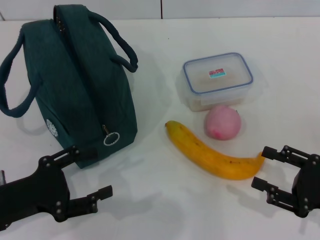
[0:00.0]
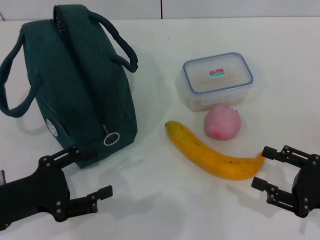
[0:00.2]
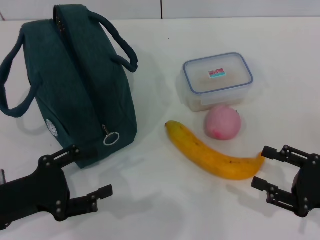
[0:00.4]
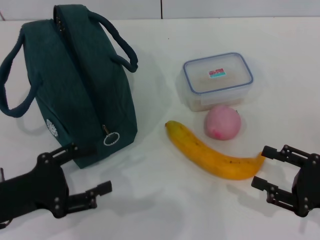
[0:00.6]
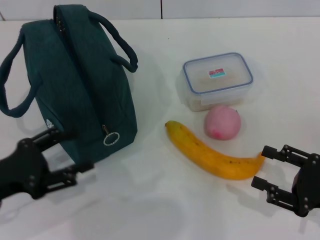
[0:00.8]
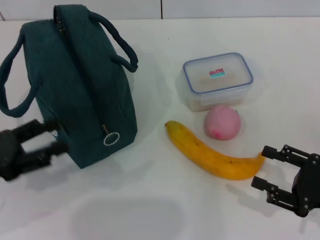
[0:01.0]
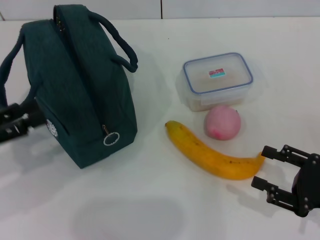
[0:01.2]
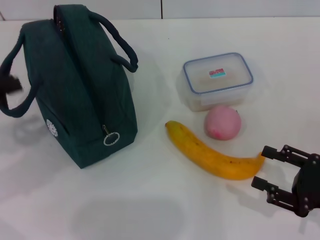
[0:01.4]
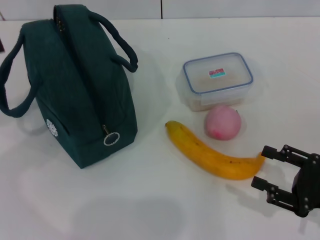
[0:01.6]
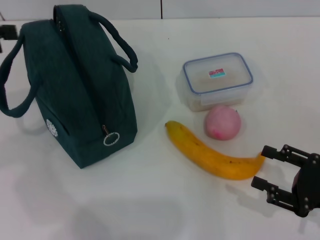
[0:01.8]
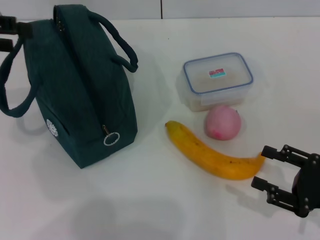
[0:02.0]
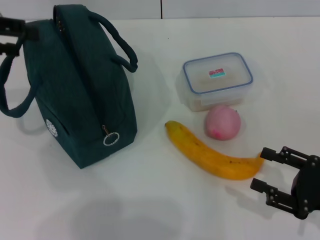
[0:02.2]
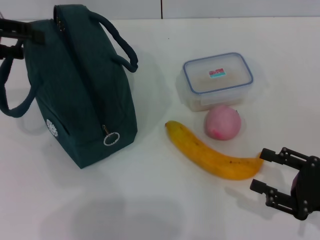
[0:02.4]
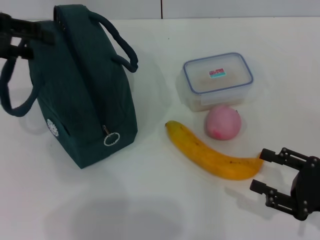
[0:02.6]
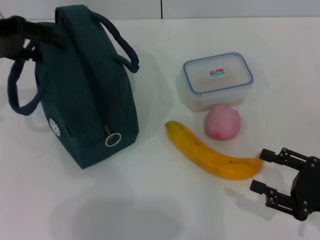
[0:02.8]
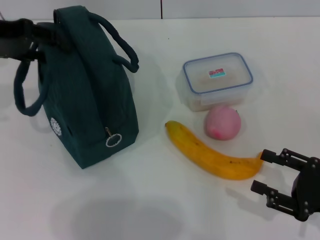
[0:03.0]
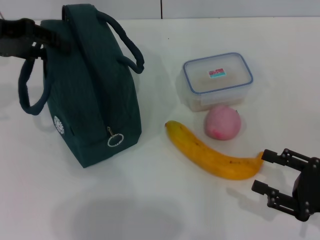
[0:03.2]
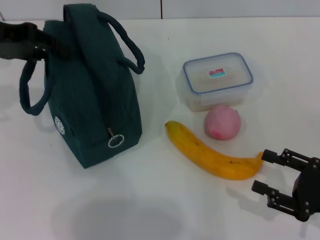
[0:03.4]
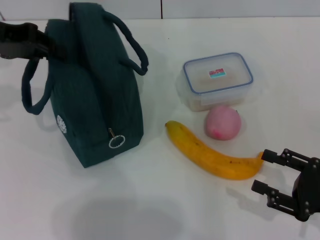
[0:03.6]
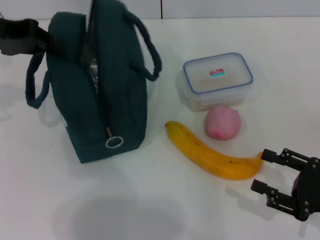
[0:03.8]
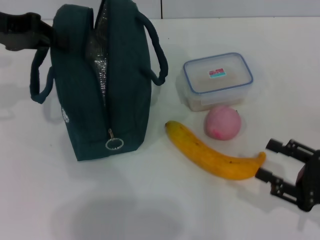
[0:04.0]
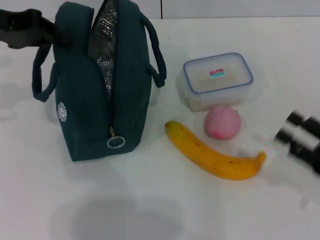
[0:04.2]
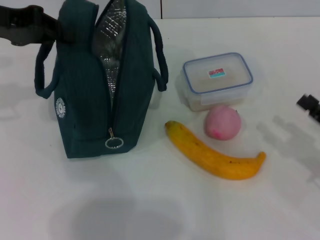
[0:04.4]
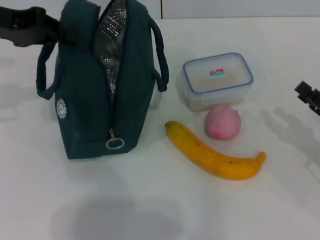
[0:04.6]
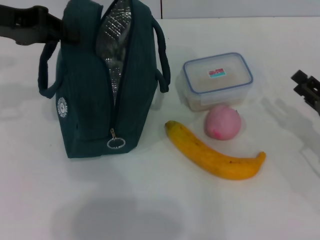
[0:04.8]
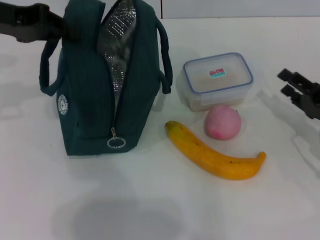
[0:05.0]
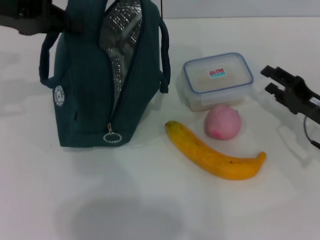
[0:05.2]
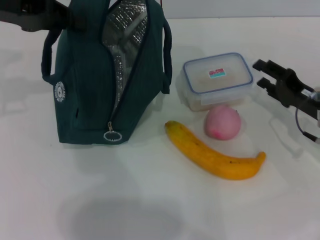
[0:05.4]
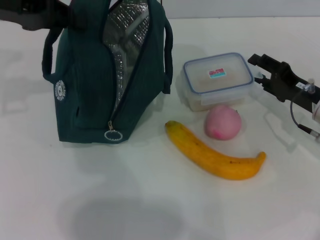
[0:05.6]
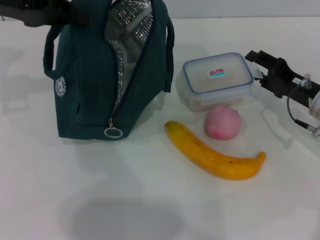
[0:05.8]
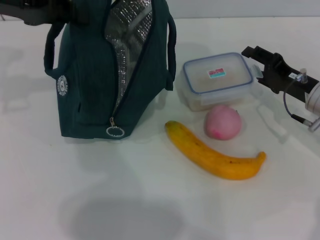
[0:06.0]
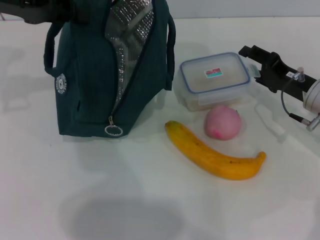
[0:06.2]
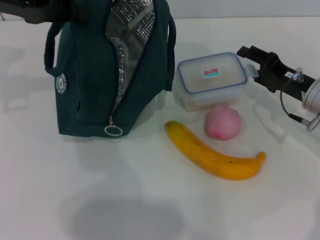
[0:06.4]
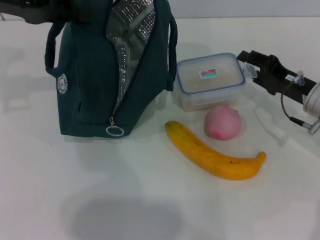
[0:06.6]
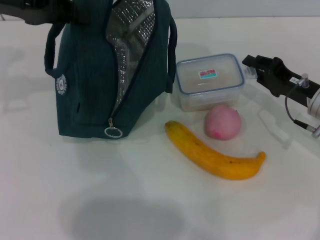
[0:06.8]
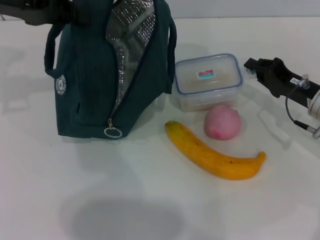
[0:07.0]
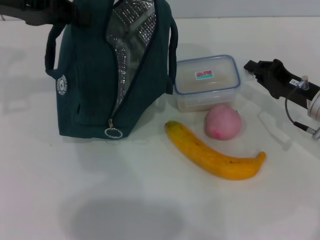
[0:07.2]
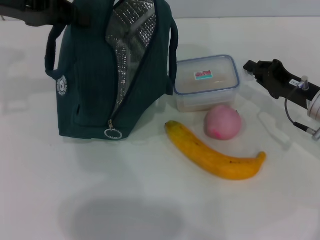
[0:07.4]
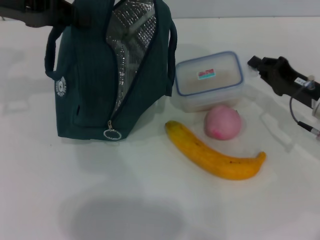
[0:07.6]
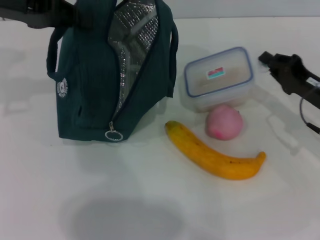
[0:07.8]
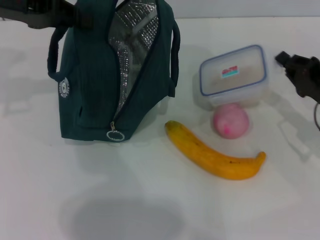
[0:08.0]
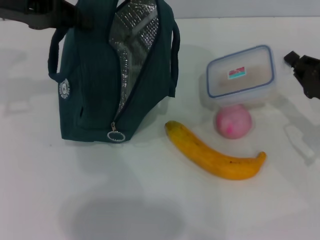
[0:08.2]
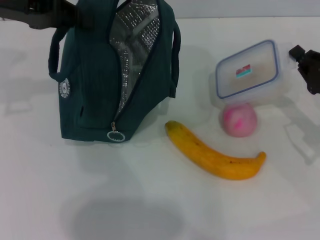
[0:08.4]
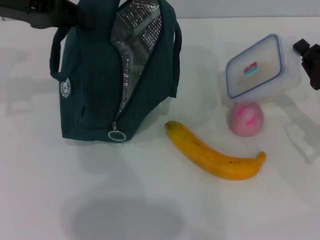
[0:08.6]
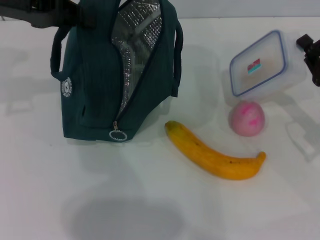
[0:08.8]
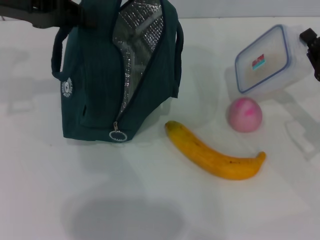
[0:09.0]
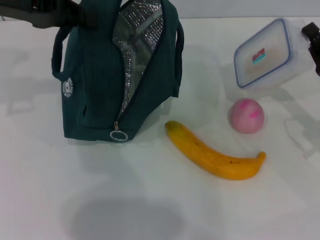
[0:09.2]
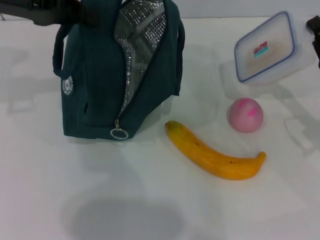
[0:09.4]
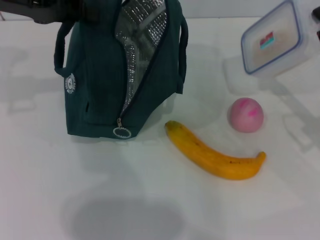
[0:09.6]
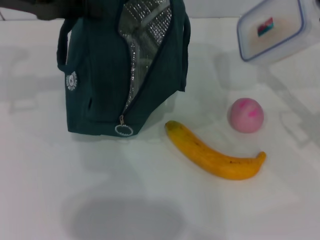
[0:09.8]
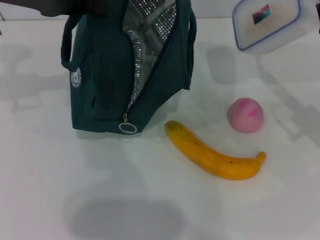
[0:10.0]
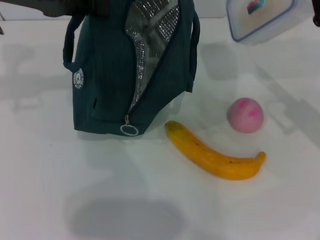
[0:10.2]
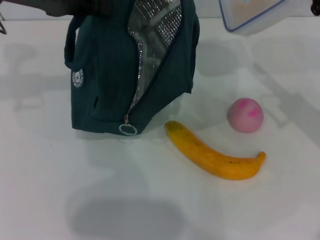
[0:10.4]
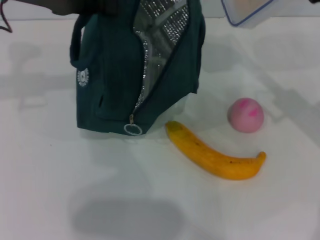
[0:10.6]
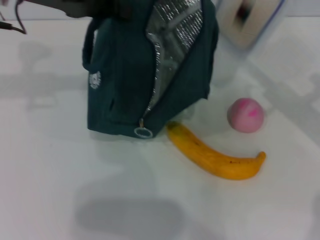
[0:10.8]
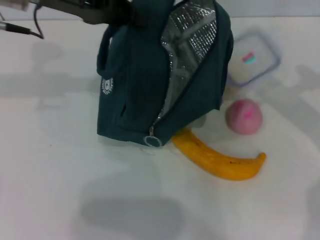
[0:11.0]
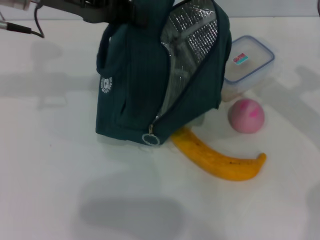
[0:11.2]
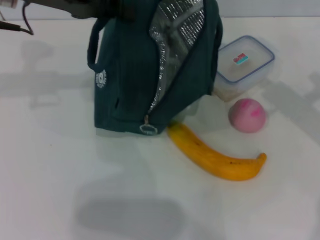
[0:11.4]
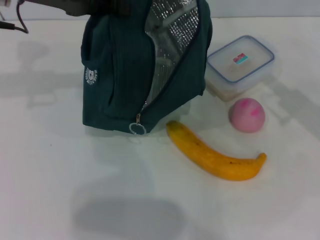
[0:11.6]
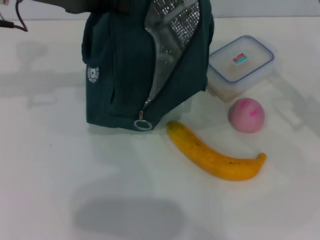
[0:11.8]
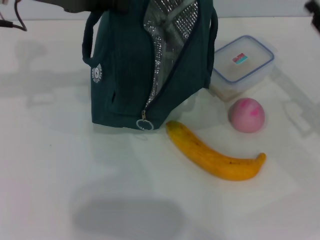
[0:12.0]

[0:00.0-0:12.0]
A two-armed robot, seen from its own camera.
Step, 0:00.0 to 0:03.6: Hold the lunch bag with your left hand.
0:00.0 to 0:01.6: The left gripper travels upward, to the left and forward by some 20 cm.
0:01.6 to 0:03.0: The left gripper goes about 15 cm forward and to the right.
0:03.0 to 0:04.4: The left gripper closes its fingers.
0:04.4 to 0:06.0: The right gripper goes approximately 15 cm forward and to the left.
0:06.0 to 0:07.6: The right gripper closes.
0:07.6 to 0:09.0: The right gripper changes place by roughly 5 cm.
0:09.0 to 0:10.4: The right gripper is displaced upward by about 5 cm.

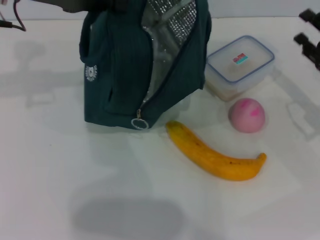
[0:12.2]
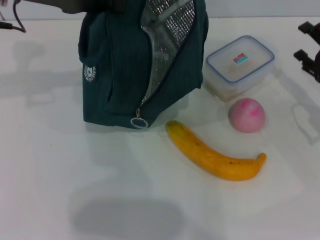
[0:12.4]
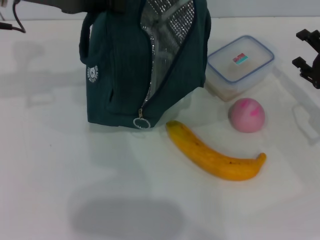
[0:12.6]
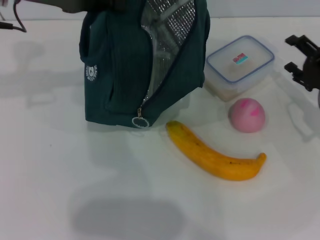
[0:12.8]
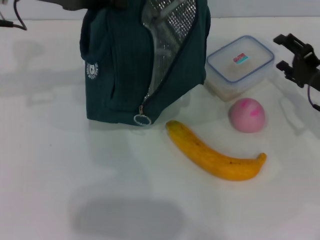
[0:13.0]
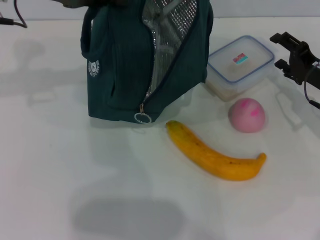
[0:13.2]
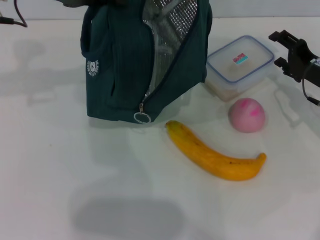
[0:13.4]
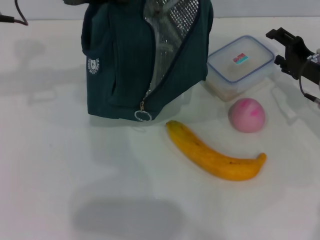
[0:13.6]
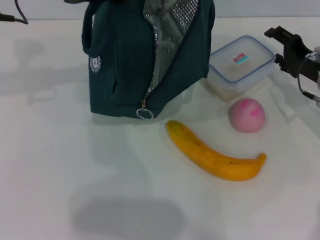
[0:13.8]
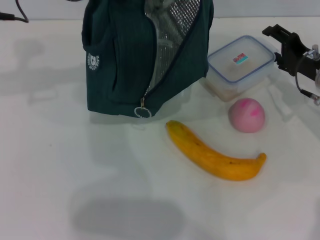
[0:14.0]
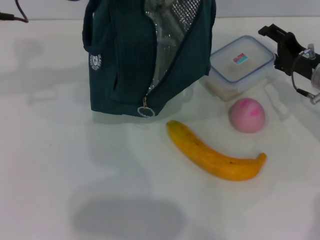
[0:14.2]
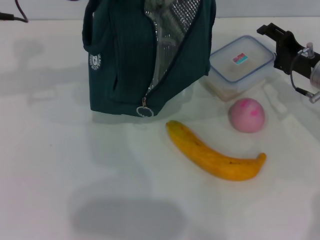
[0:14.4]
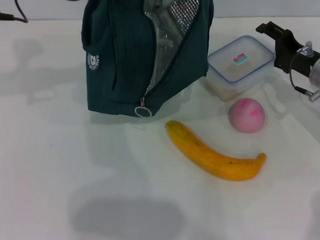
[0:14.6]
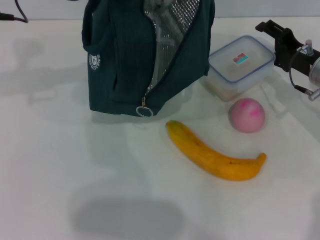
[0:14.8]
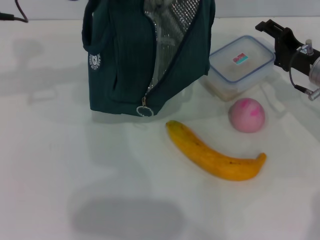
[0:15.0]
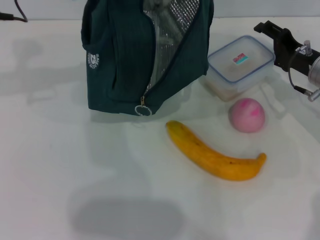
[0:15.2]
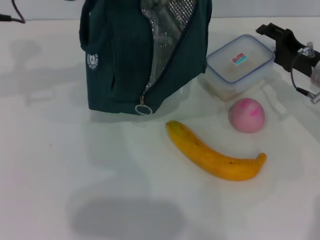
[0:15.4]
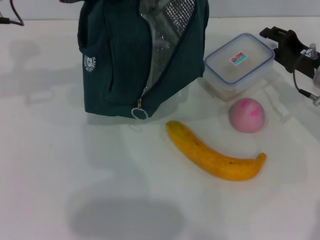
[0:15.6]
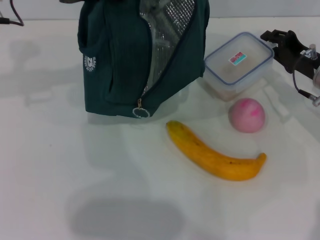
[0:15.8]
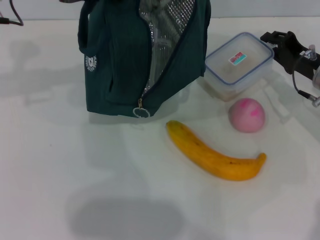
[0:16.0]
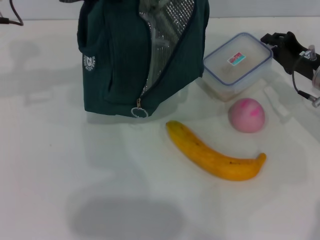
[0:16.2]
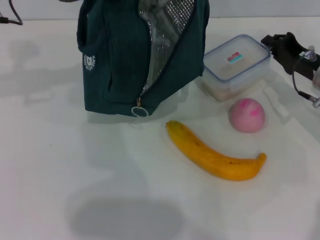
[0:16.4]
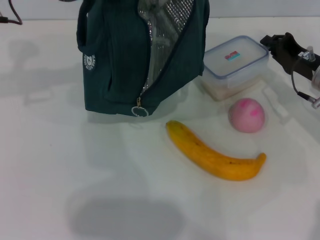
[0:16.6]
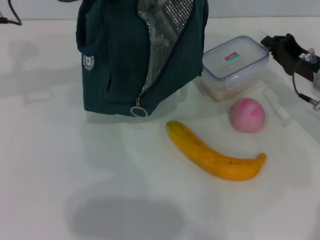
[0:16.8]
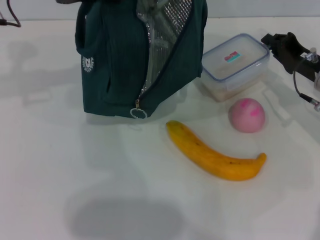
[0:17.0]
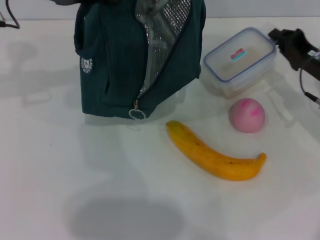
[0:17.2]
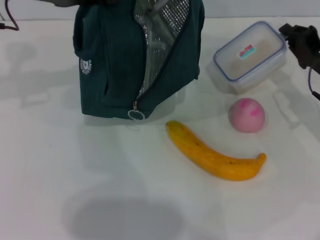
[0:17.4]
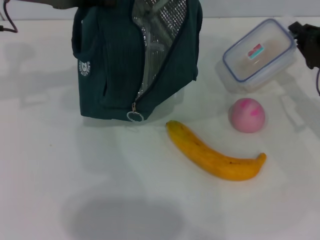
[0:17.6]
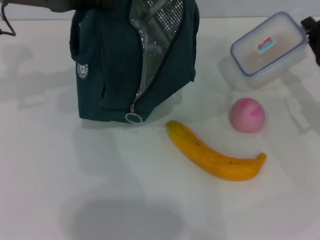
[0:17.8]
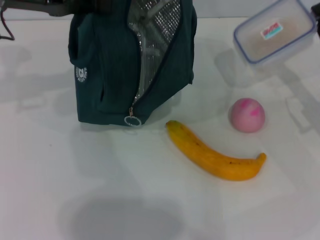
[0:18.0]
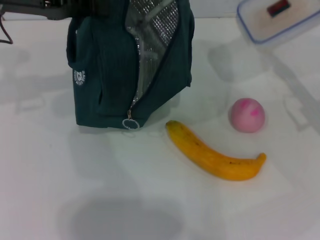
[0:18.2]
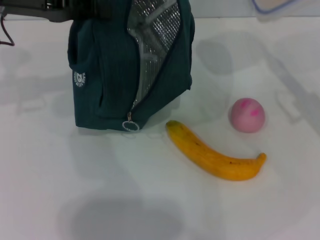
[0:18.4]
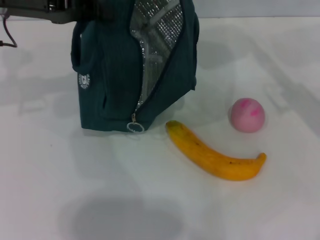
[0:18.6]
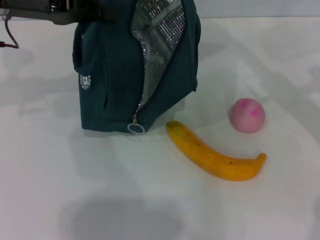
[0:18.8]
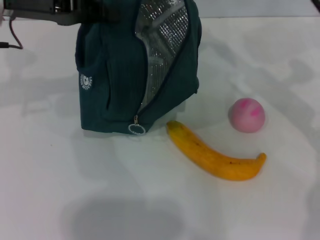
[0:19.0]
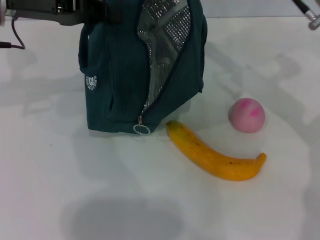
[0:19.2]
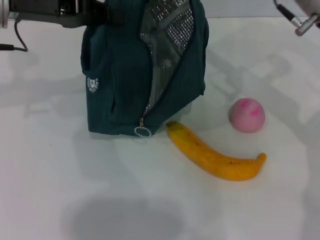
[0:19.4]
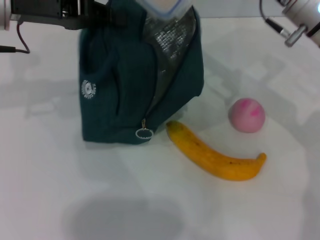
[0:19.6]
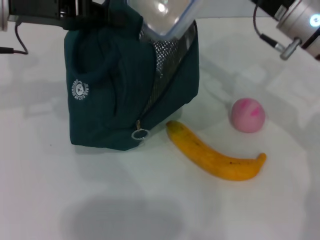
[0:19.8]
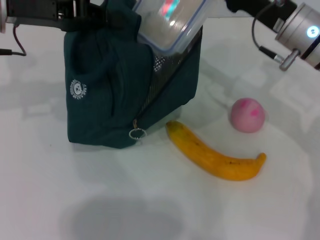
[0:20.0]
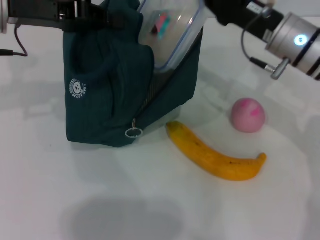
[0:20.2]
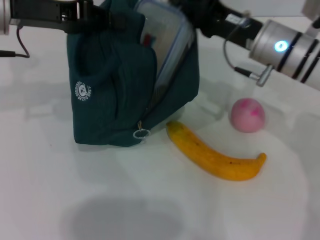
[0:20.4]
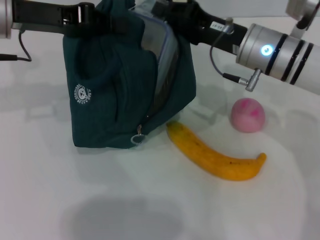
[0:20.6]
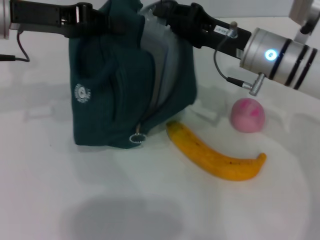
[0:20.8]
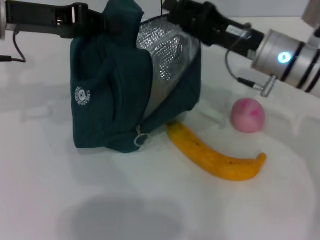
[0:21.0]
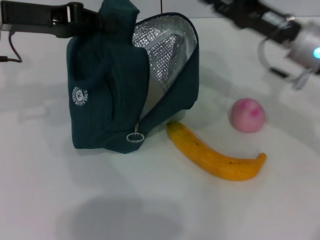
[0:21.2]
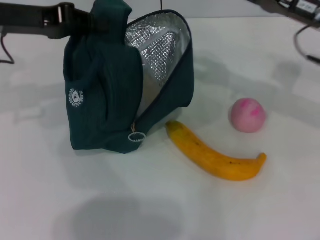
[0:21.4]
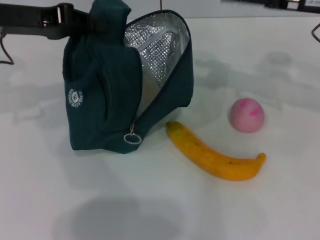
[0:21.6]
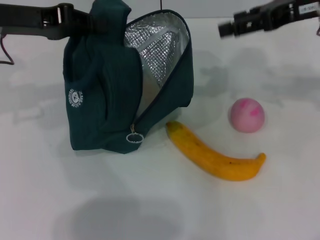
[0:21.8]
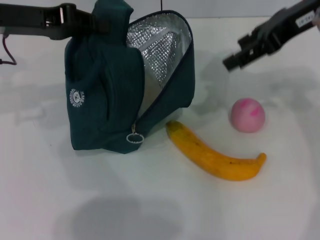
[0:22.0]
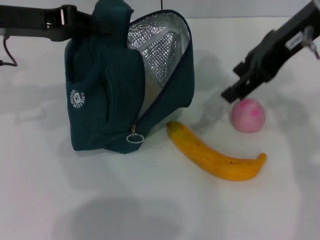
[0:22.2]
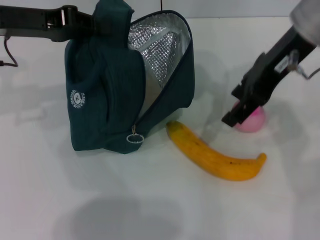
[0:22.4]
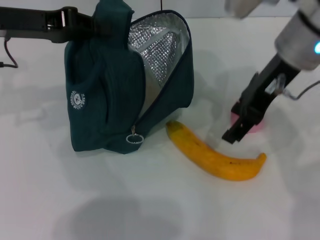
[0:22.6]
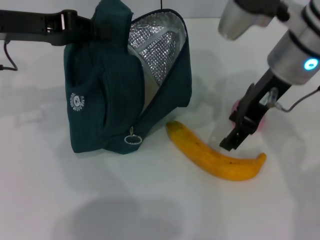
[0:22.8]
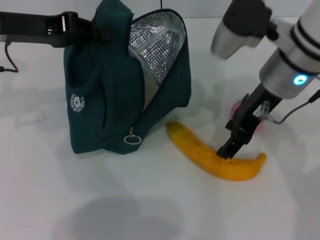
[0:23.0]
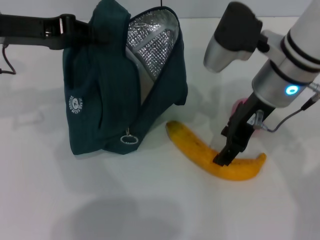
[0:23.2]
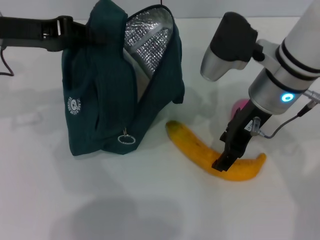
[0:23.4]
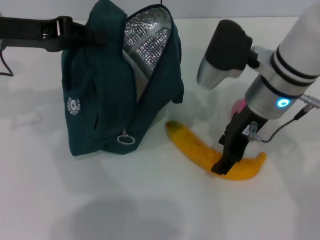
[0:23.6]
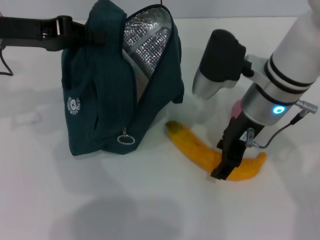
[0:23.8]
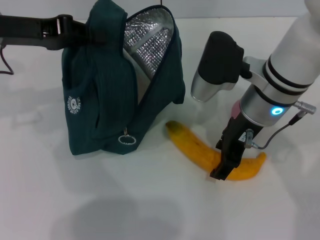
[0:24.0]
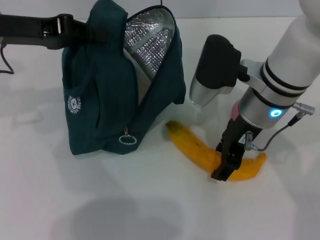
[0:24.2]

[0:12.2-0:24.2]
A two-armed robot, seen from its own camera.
Step, 0:12.2 to 0:16.6: Pick up the lunch box with your right hand.
Step, 0:16.8 to 0:21.2: Place the lunch box into the lunch bag with your right hand.
0:12.2 to 0:13.8: The right gripper heads forward, covering some 5 cm, and opens.
0:13.8 to 0:15.2: The grippers stay close to where they were, moving slightly.
0:15.2 to 0:16.6: The right gripper closes.
0:16.6 to 0:18.2: The right gripper moves roughly 5 cm.
0:18.2 to 0:19.8: The right gripper shifts about 15 cm to the left, upward and forward.
0:19.8 to 0:21.2: The right gripper opens its fingers.
0:21.2 to 0:22.6: The right gripper moves upward and to the left, about 10 cm, and opens its fingers.
0:22.6 to 0:24.2: The right gripper shifts some 10 cm downward.
